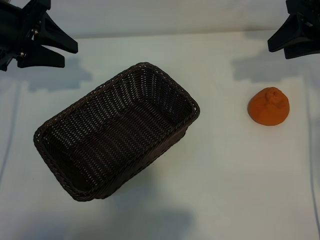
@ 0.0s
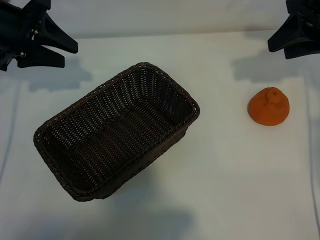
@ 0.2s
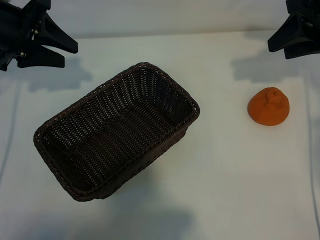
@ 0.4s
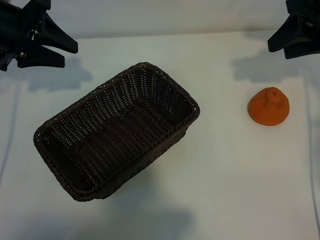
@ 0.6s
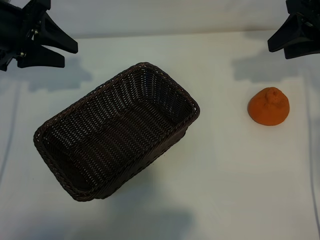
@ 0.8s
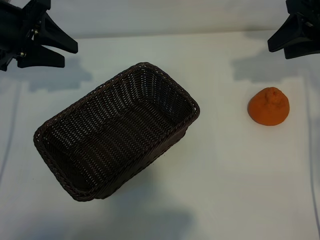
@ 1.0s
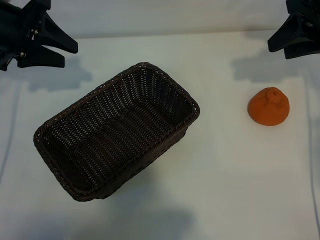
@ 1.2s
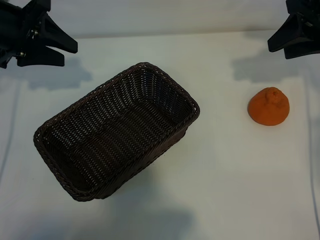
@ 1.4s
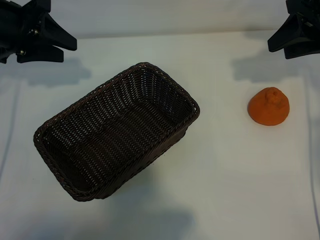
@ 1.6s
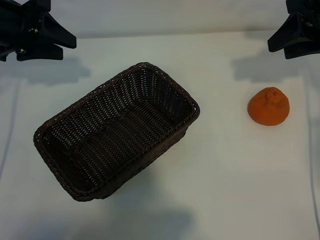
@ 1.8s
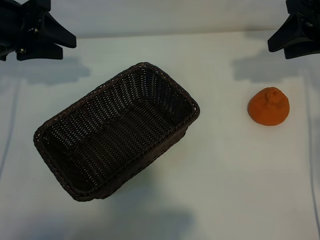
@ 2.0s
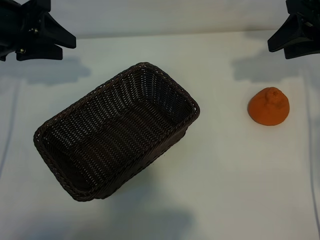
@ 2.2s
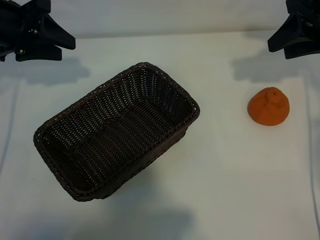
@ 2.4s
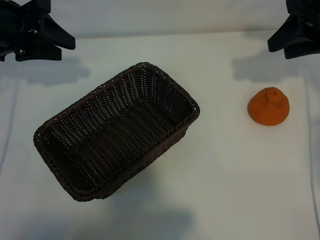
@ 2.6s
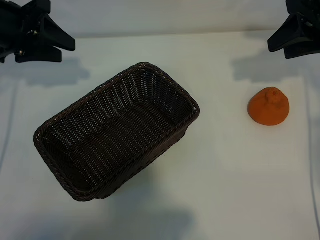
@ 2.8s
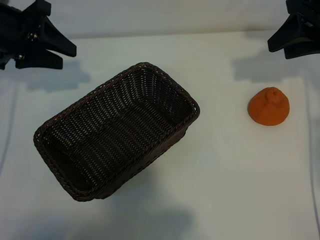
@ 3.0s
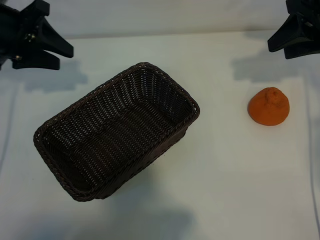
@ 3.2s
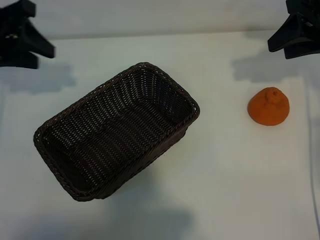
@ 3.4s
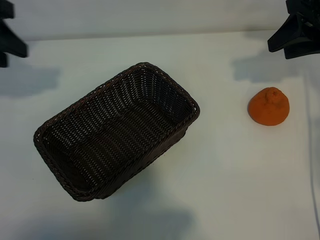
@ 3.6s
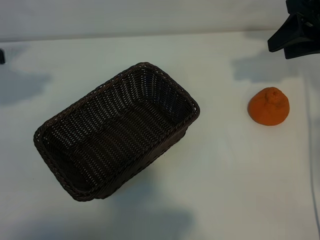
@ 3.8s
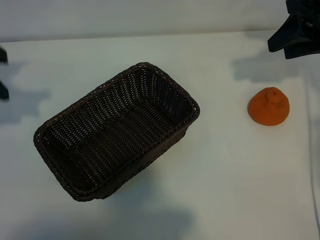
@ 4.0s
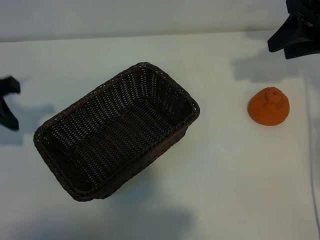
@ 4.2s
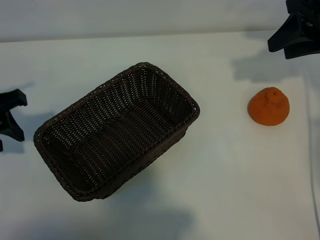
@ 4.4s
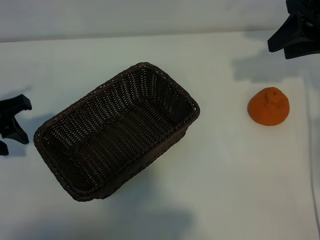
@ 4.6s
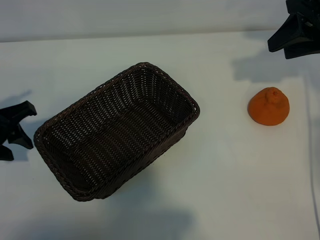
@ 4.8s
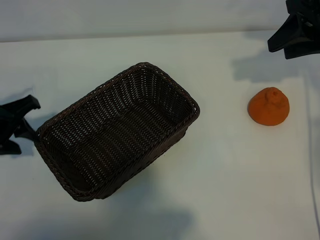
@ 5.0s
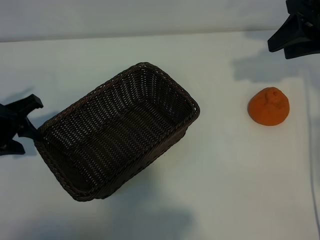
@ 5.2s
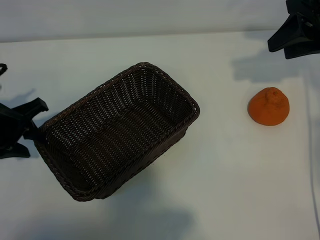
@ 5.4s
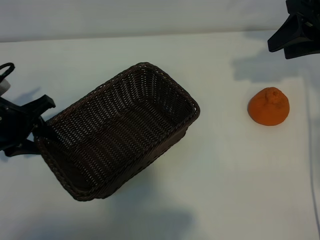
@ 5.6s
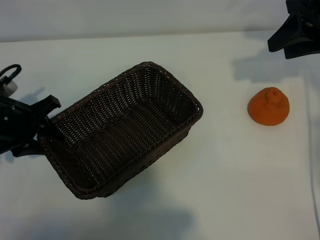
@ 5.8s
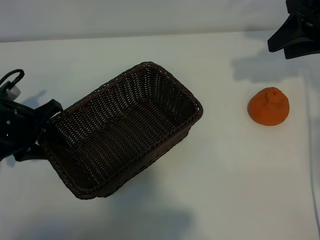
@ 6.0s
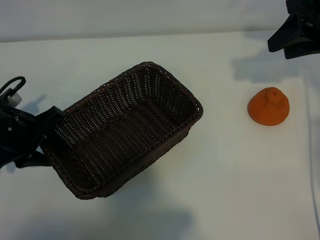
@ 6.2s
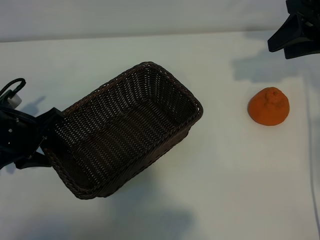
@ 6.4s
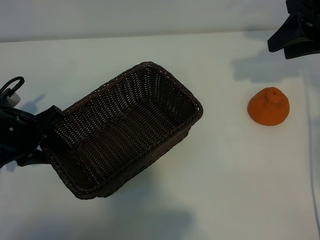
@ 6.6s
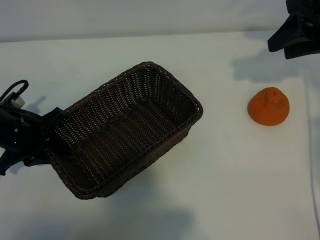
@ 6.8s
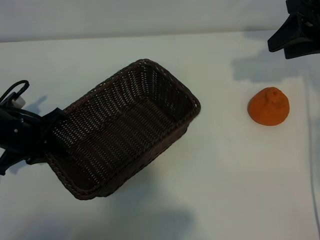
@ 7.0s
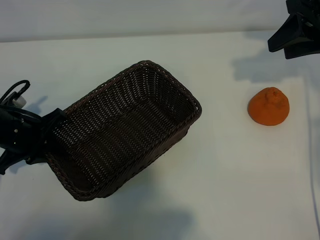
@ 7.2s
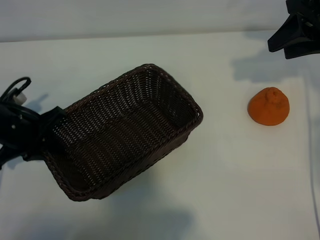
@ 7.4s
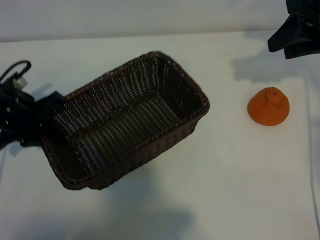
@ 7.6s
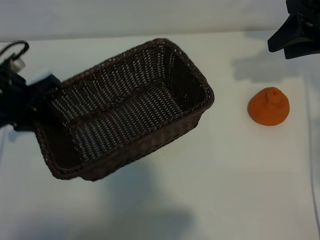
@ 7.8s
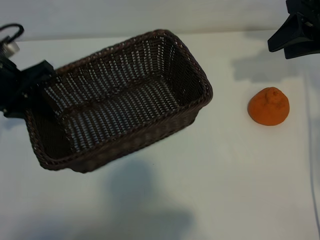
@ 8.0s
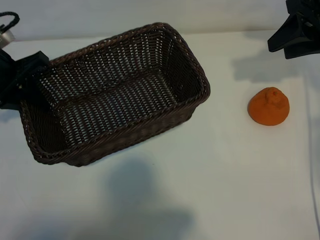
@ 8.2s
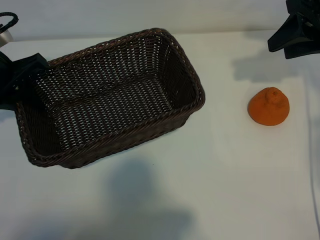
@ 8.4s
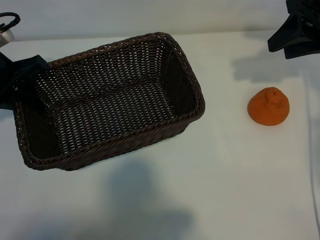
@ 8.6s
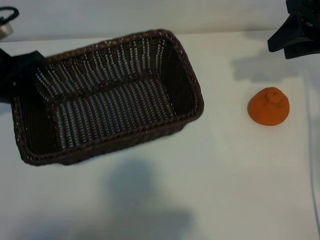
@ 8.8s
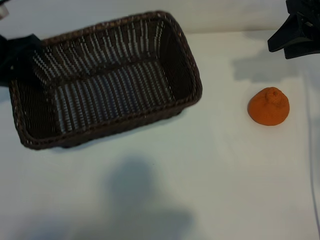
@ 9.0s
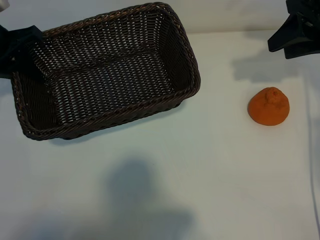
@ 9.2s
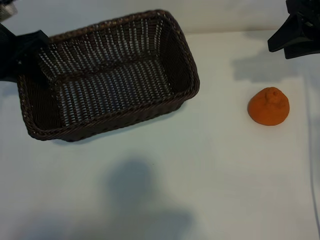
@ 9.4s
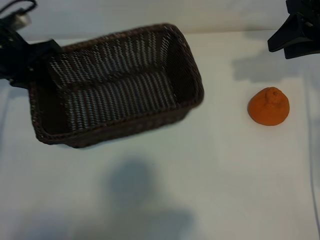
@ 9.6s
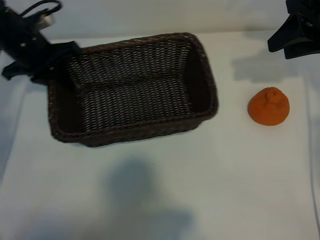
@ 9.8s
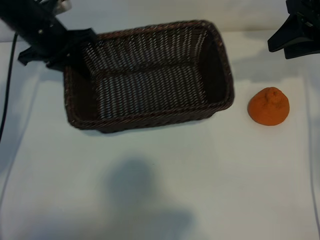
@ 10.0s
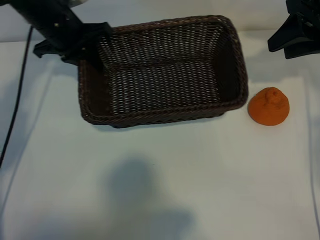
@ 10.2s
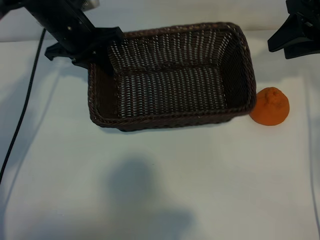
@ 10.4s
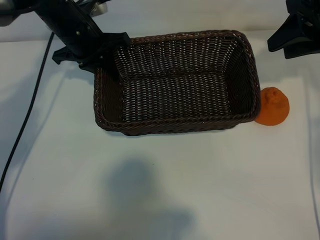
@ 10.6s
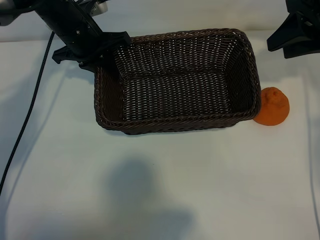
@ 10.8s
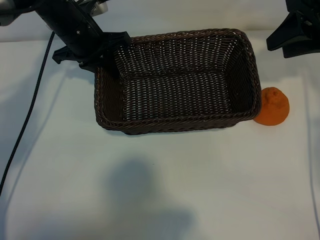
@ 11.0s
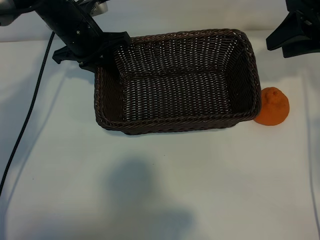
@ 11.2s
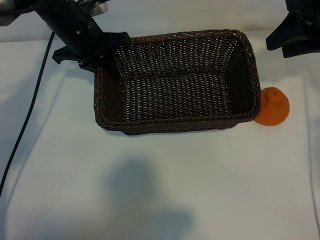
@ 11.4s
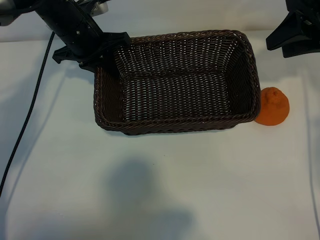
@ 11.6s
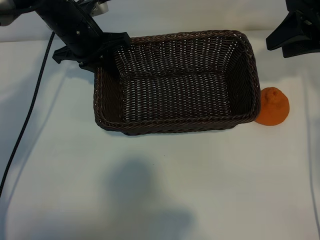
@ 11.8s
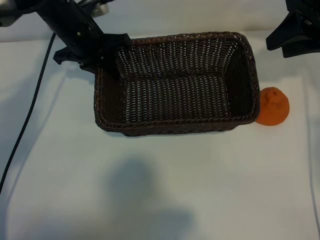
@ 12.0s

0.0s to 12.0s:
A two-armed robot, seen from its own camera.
Task of the whole recording: pick up the orange and put it into the basket.
Step, 1.4s to 7.0s: Grasp the basket with left gripper.

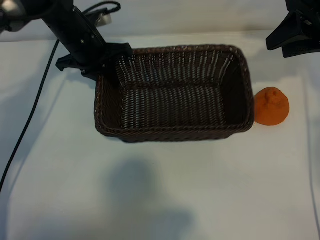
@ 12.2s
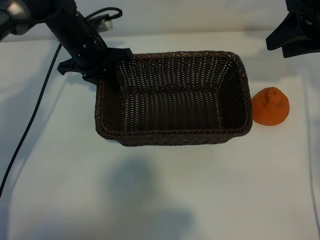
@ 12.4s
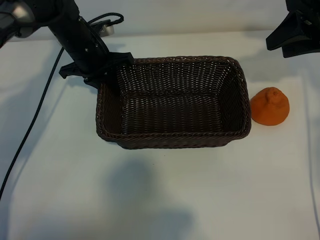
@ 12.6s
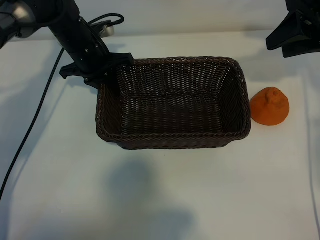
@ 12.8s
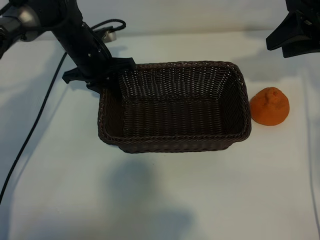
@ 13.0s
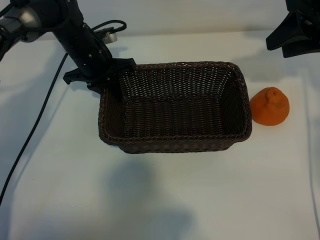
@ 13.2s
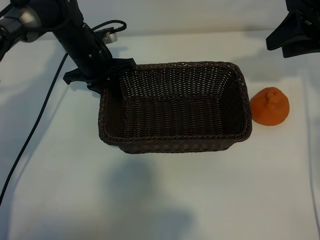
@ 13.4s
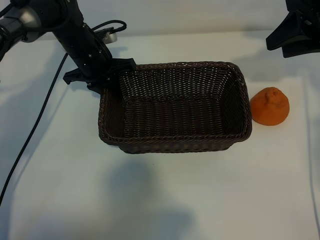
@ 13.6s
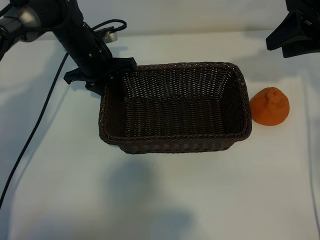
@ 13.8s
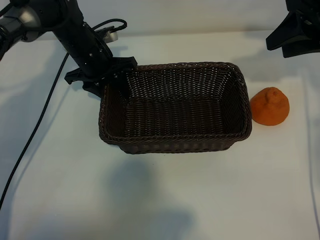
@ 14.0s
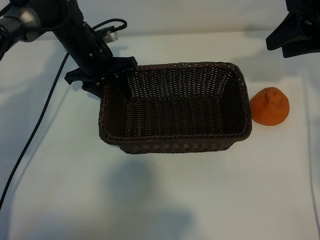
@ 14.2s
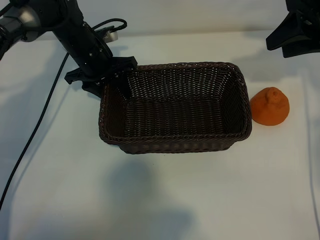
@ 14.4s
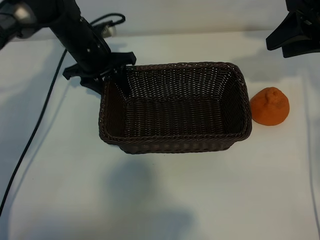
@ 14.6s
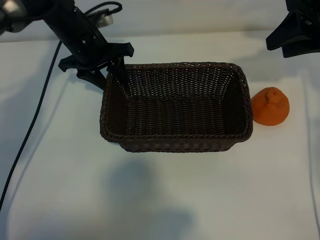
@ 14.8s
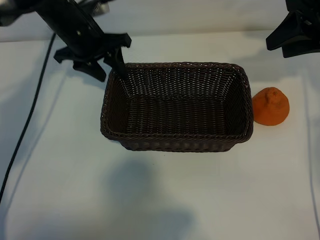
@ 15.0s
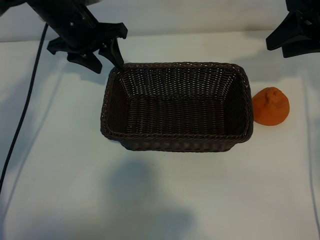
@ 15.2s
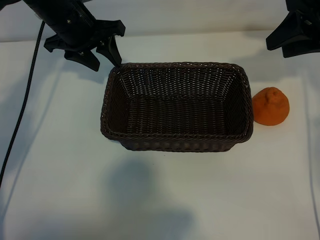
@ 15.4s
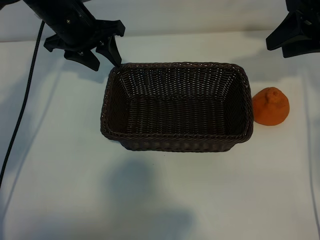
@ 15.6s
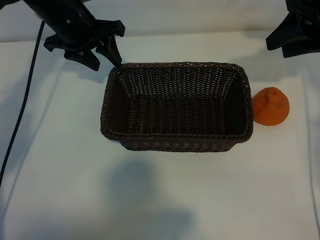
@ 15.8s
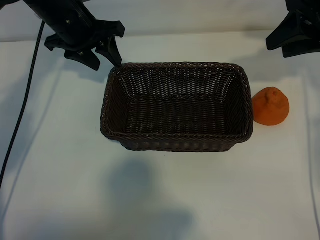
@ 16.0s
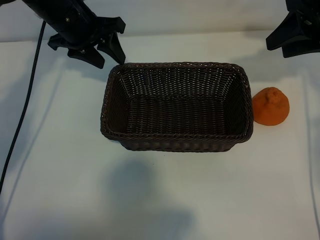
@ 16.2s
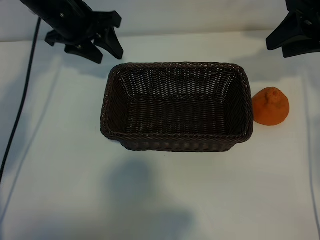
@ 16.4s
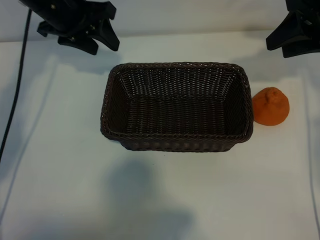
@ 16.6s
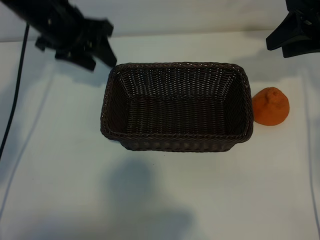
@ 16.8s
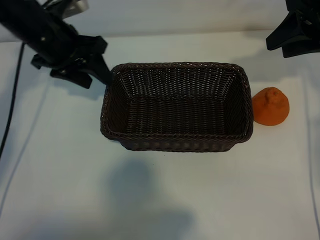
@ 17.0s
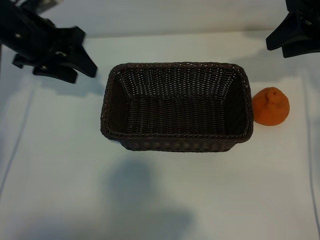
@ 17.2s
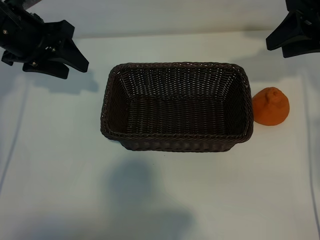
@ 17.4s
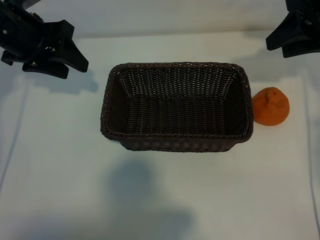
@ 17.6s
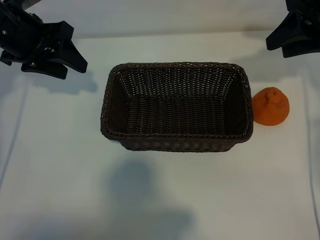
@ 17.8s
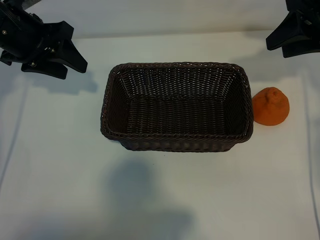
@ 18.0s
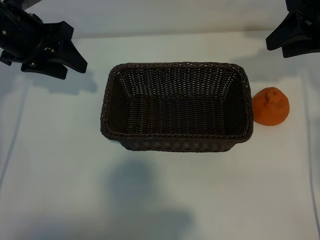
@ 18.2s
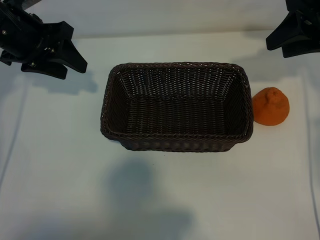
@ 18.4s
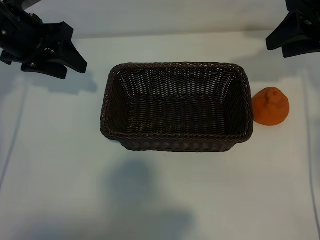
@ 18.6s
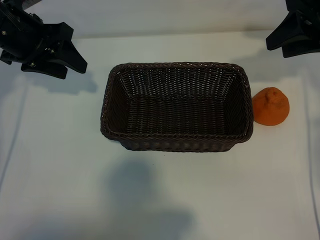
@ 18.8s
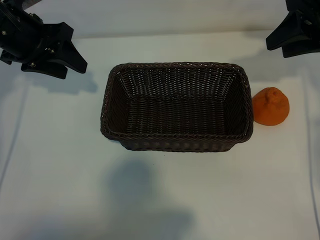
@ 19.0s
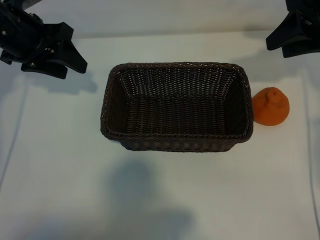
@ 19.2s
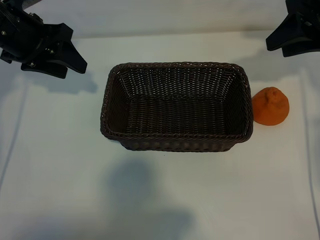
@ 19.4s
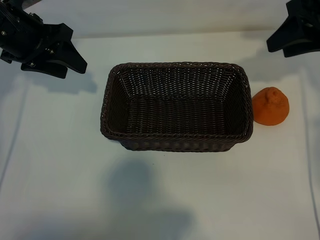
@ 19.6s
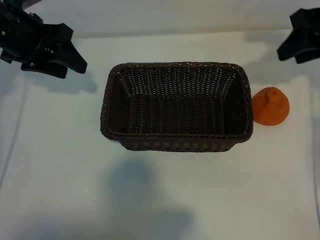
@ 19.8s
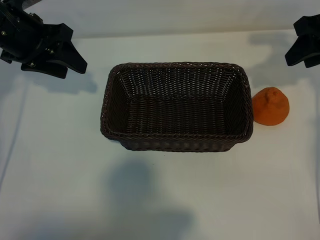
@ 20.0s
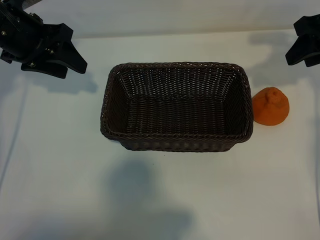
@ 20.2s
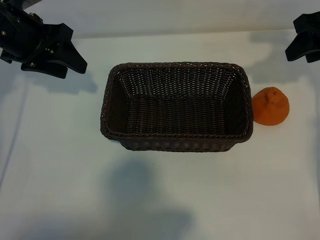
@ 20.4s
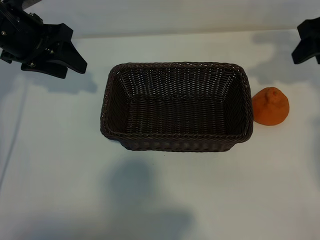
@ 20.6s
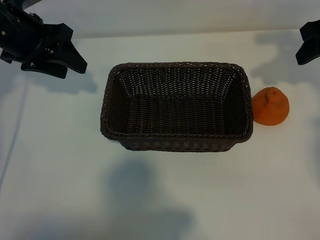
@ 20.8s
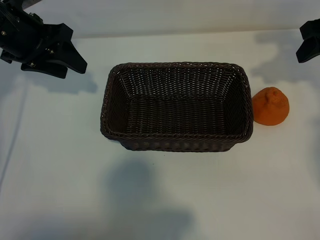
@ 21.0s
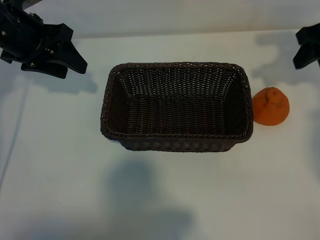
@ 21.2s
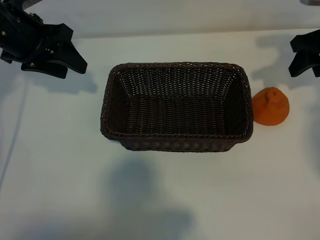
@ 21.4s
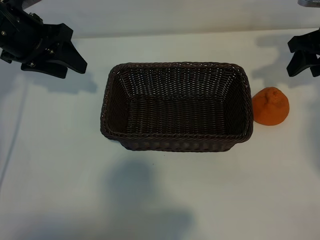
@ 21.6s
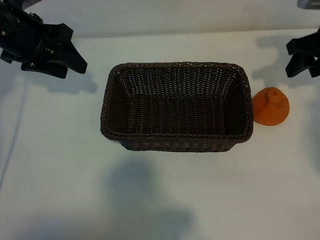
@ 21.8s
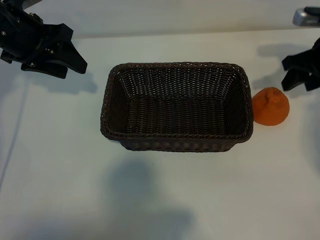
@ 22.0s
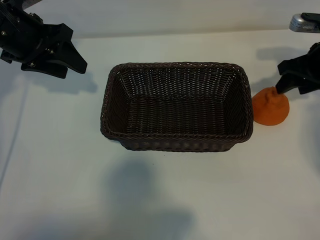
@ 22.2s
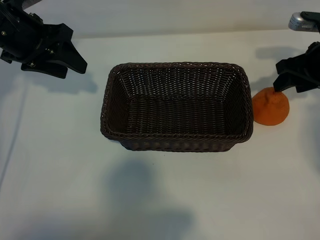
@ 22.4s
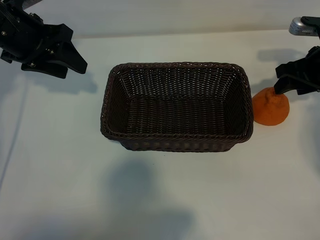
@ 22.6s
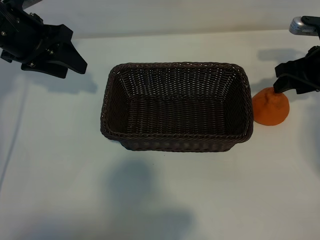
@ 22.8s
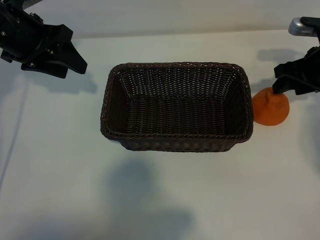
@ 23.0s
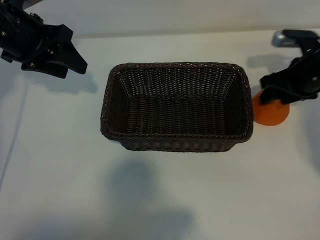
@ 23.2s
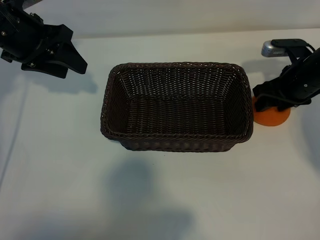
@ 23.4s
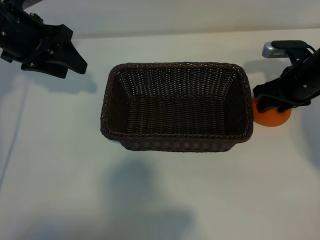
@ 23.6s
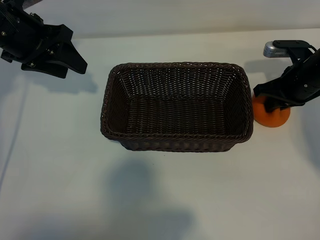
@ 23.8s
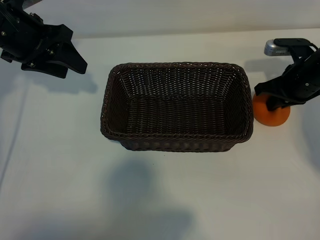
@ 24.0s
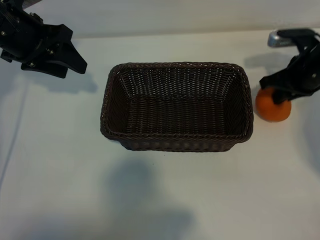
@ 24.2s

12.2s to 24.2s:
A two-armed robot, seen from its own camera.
Task of the whole recording: pick up the orange and put it into the basket.
Step, 14.2s to 23.8s: Grasp the orange with right gripper.
